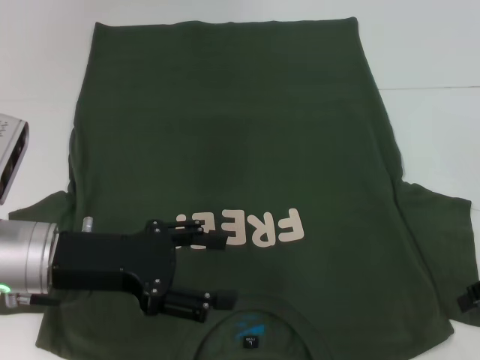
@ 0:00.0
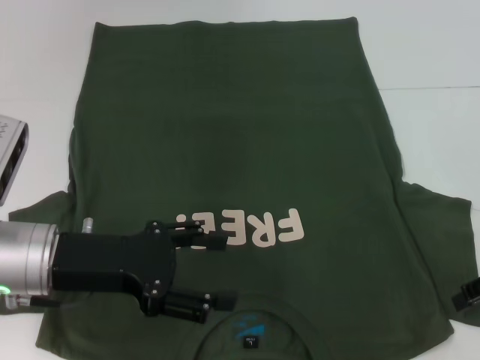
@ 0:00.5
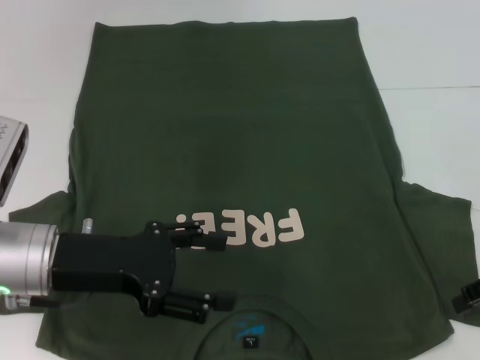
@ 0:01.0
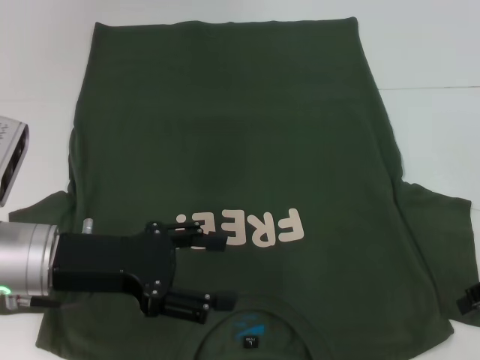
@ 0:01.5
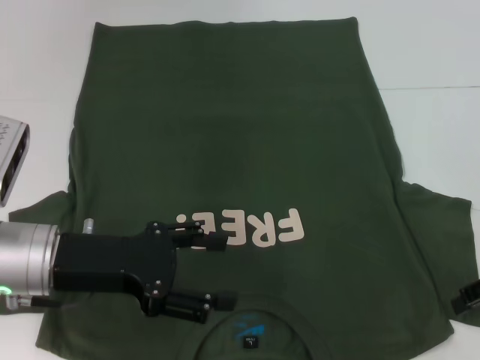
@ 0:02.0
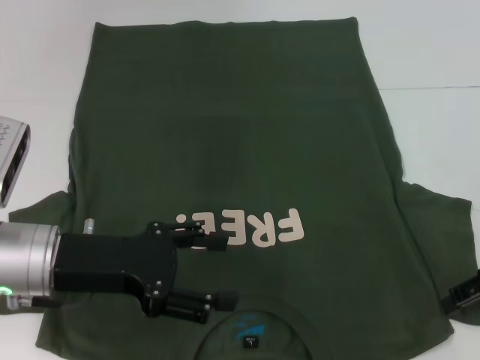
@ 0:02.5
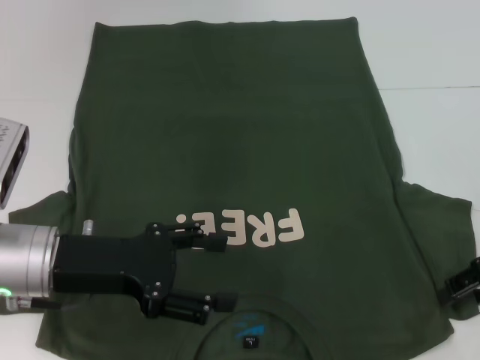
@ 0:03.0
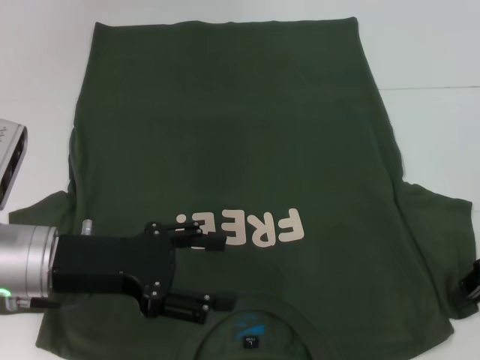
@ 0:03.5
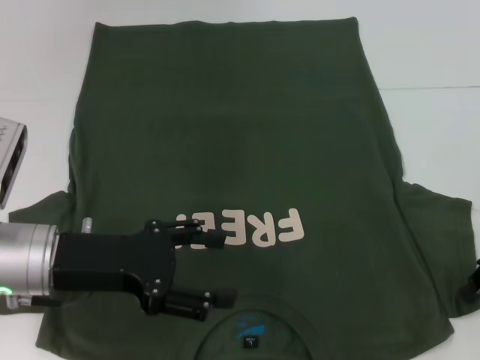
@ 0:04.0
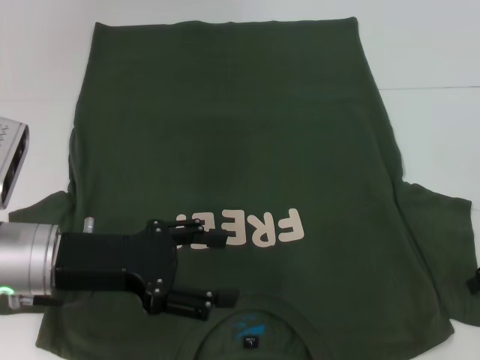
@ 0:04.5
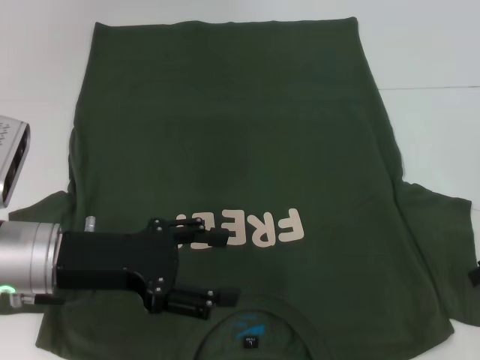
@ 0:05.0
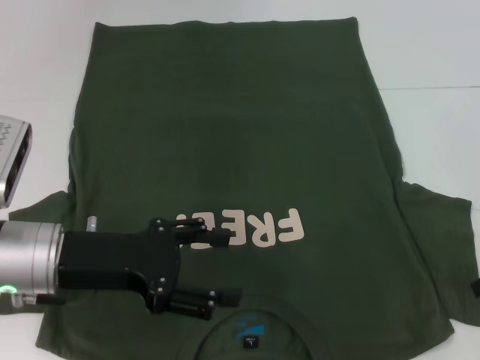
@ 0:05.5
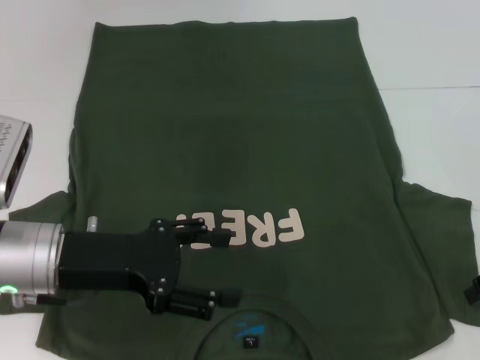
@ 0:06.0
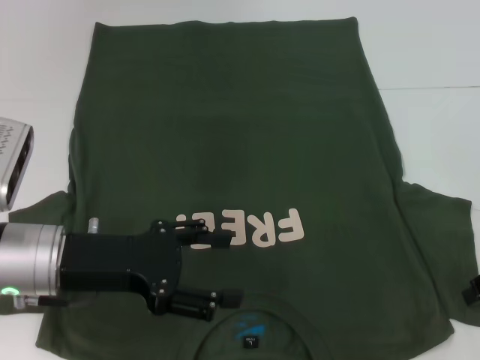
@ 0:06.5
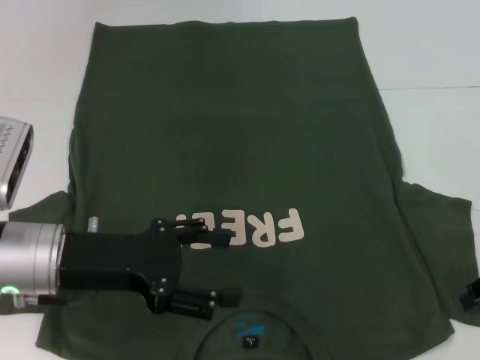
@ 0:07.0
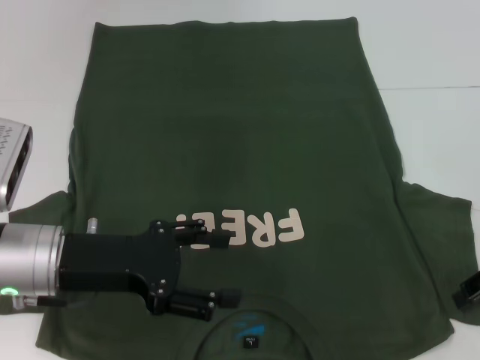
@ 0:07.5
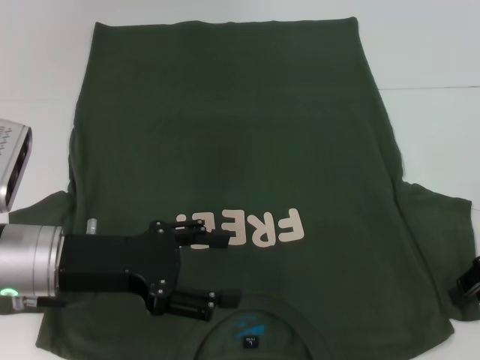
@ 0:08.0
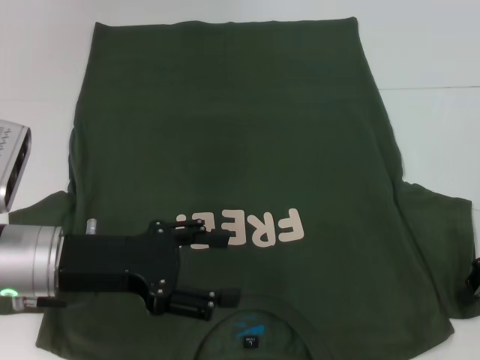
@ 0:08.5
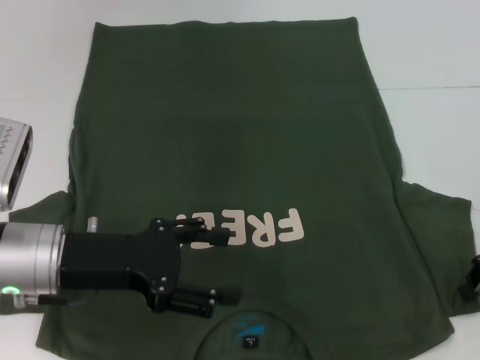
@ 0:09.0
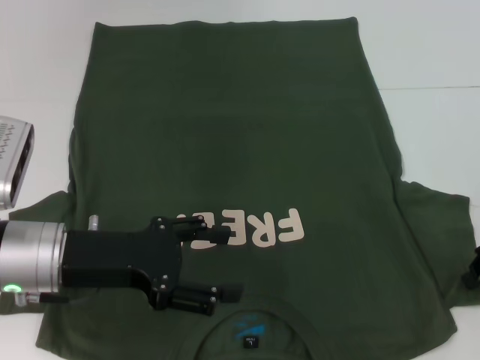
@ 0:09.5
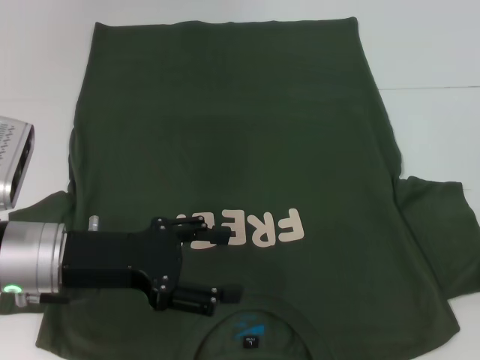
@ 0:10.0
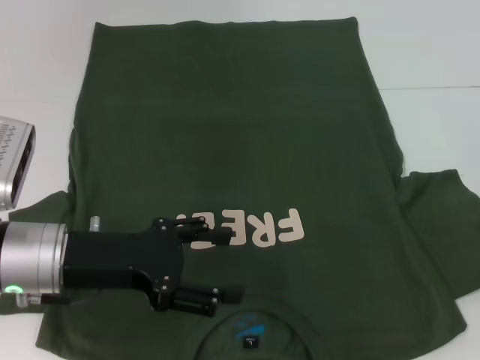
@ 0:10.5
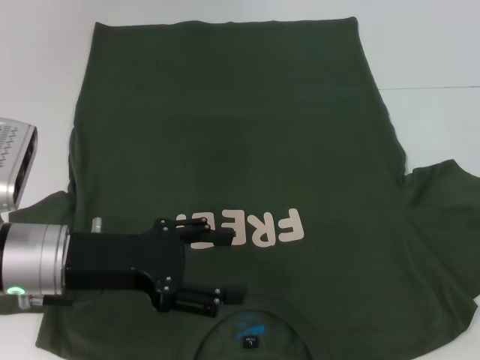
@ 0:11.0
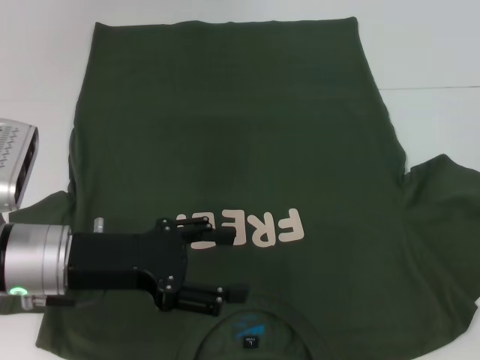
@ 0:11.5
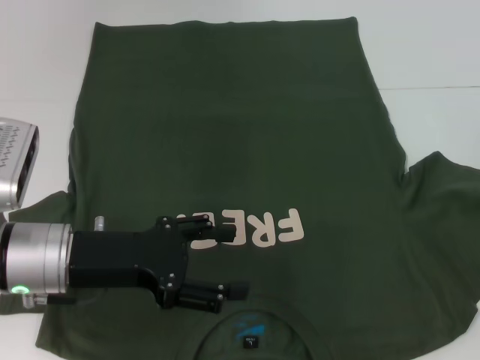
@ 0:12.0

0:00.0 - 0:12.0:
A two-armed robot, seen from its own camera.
0:00.0 - 0:02.0: Both grippers stay put.
0:04.0 - 0:06.0: The right gripper opens up.
0:06.0 - 0:08.0: There are only small adjustments of the grippers.
0:08.0 - 0:10.0: The right gripper closes its fingers.
0:10.0 - 0:12.0: There are only small adjustments of the grippers.

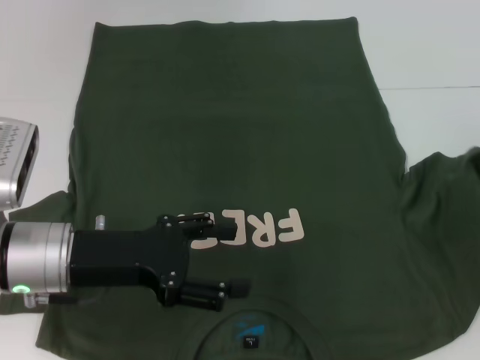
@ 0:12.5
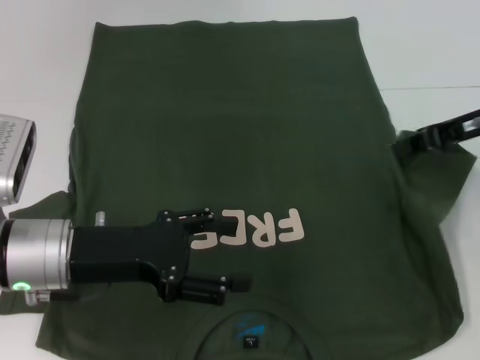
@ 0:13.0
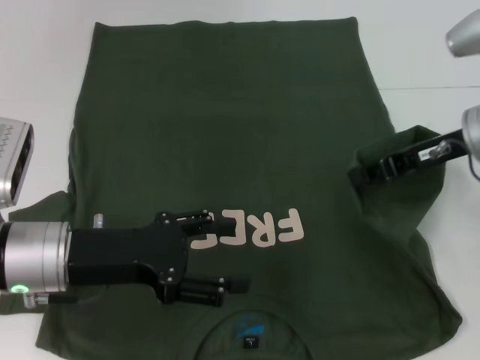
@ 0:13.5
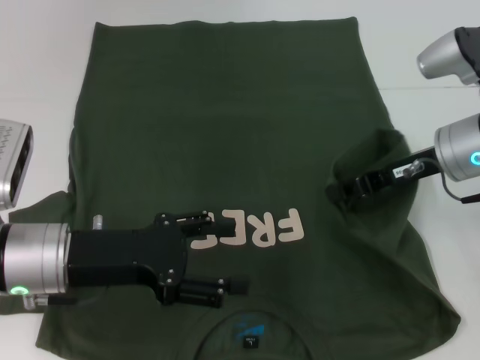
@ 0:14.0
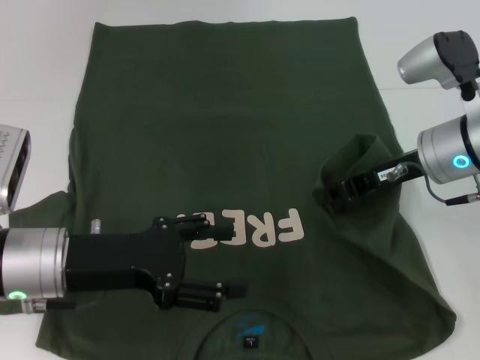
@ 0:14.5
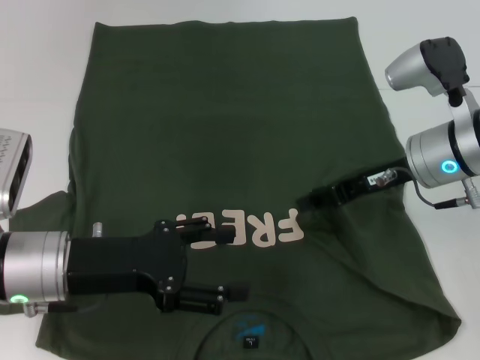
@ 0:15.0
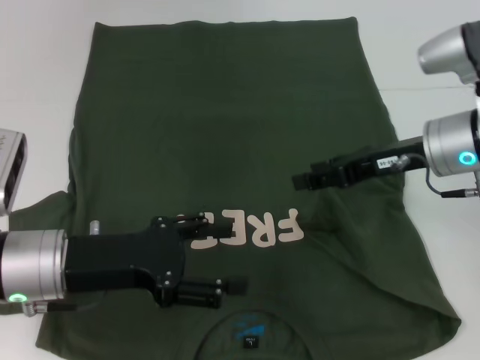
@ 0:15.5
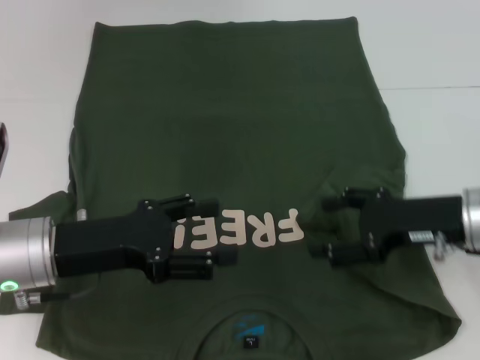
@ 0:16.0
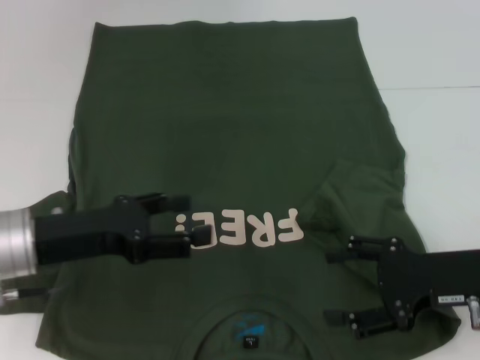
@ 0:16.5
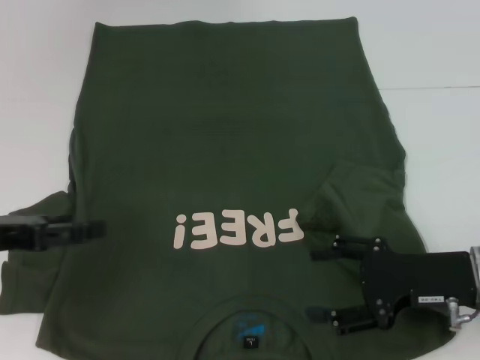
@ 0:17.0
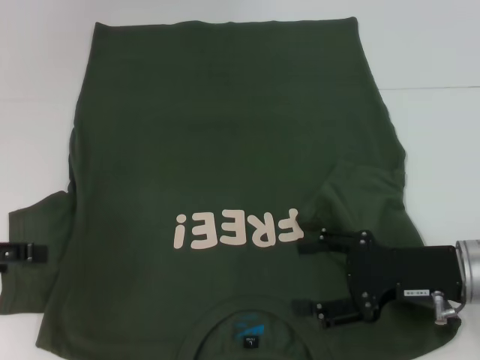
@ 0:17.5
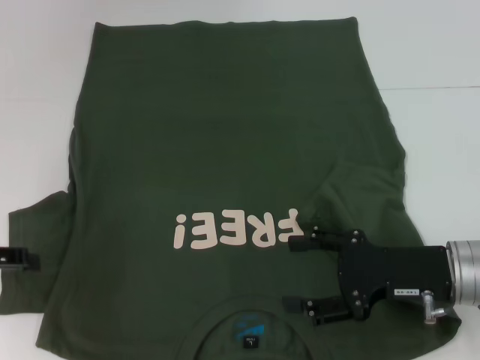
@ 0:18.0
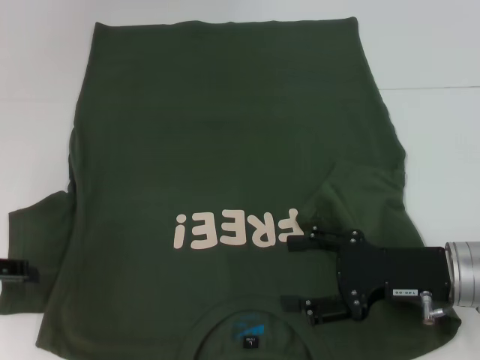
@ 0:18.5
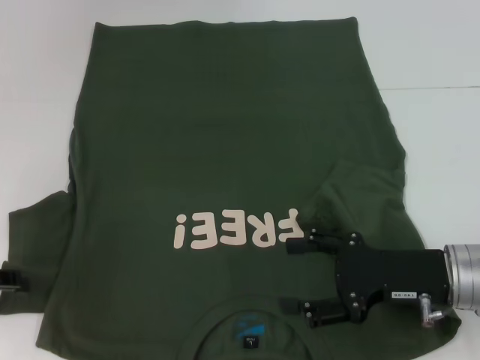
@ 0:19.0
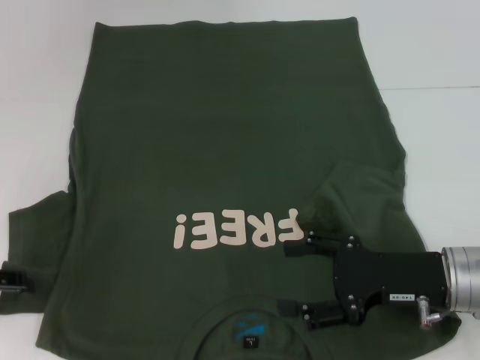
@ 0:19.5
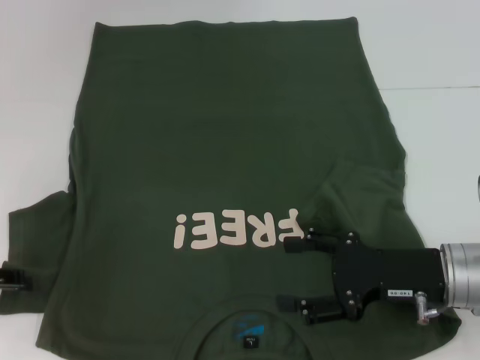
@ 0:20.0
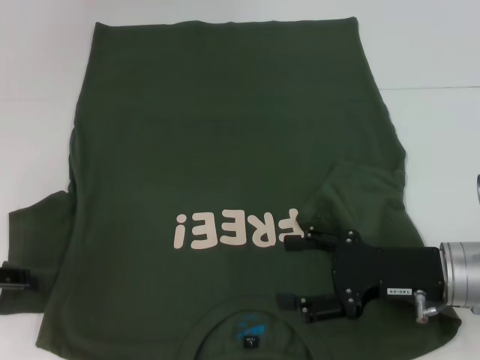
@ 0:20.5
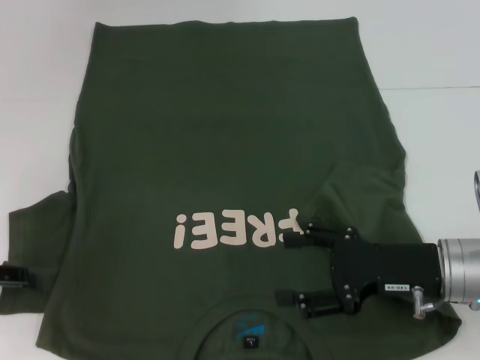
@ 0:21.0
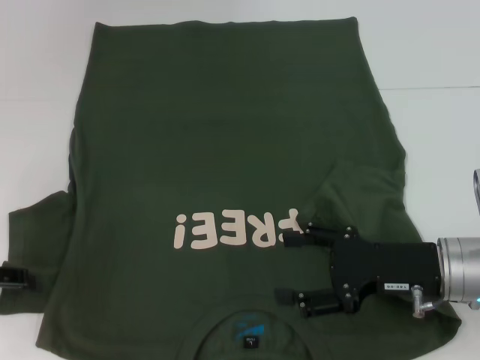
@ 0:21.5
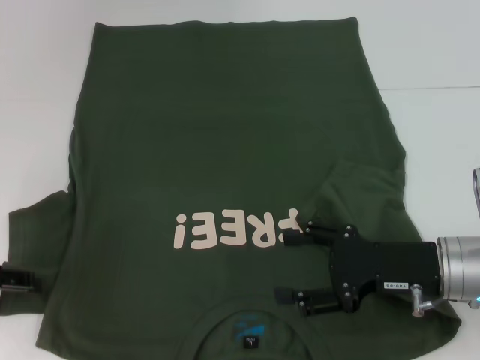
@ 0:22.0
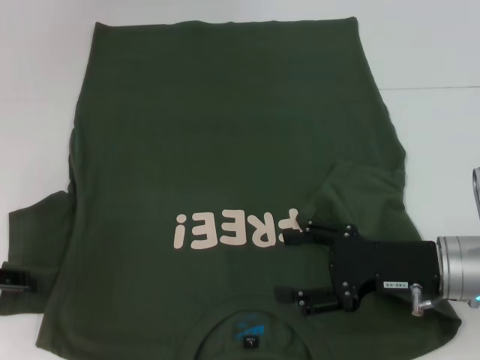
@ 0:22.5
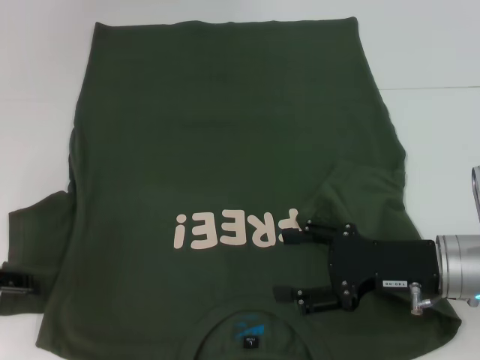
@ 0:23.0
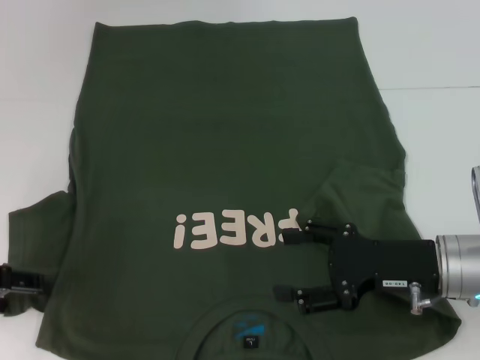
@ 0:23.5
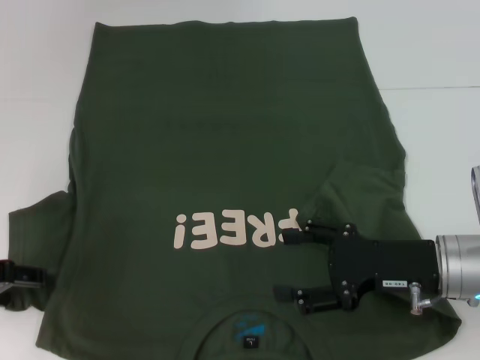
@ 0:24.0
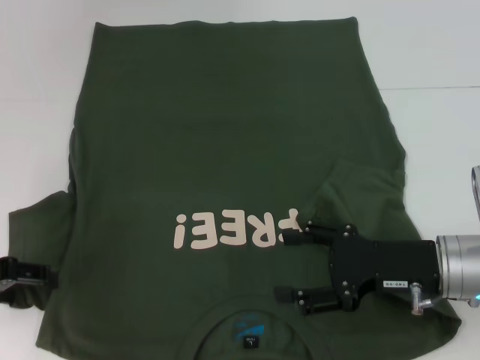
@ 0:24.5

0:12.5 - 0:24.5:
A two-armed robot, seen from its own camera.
Step, 0:12.5 - 0:15.0: Fold the bottom right sleeve with your right hand.
0:12.5 - 0:14.5: The right gripper moves to the left and downward, approximately 15 cm.
0:14.5 - 0:16.5: The right gripper heads backward, covering about 10 cm, and opens.
0:16.5 - 0:18.5: The left gripper travels to the left by about 10 cm.
0:18.5 - 0:20.5: The grippers stay close to where they were, moving slightly.
0:20.5 - 0:22.5: Neither gripper changes place.
0:22.5 - 0:24.5: There are only small adjustments of the grippers.

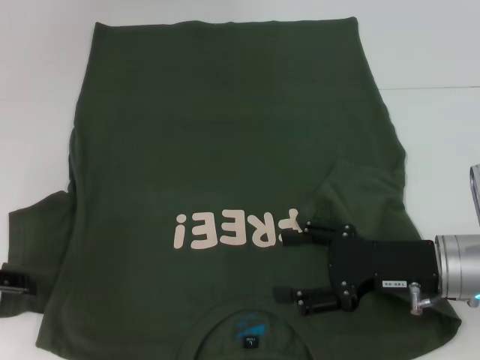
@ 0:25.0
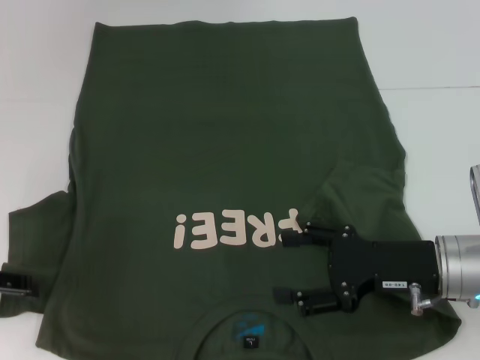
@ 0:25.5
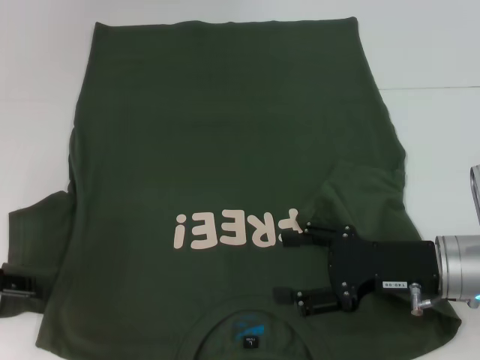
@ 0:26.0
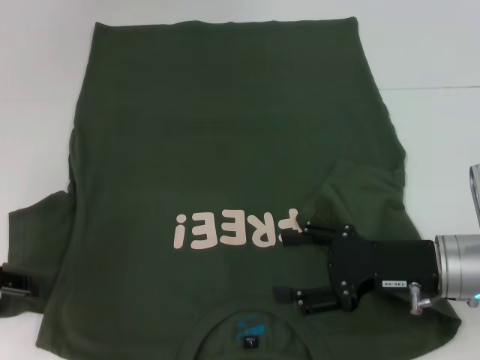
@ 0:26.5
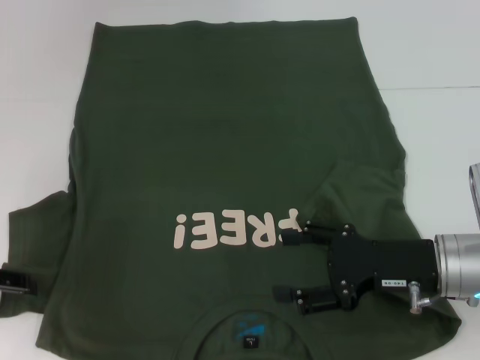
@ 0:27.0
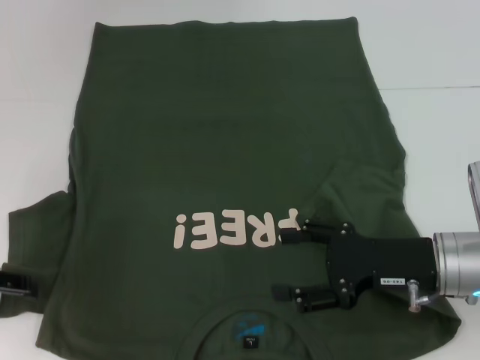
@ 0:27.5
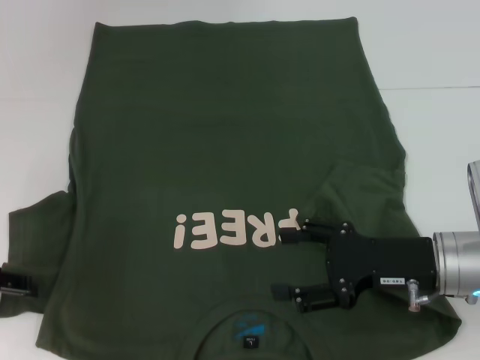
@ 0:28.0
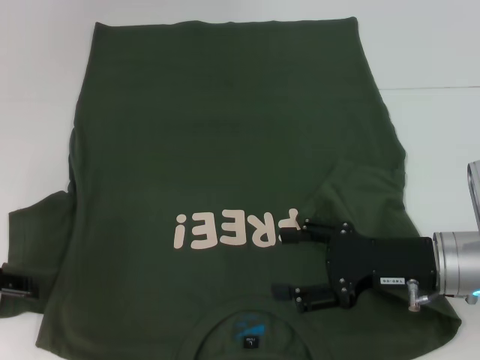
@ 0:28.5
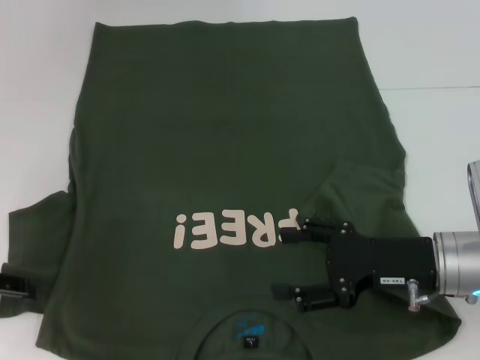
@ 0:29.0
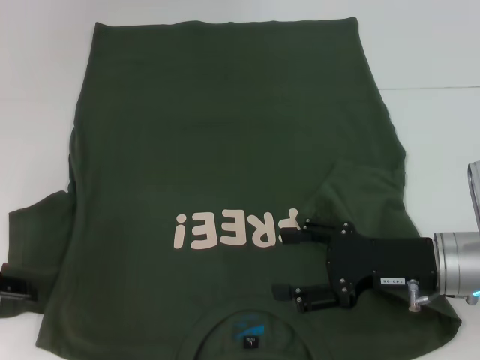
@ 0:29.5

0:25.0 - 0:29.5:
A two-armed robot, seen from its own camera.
0:25.0 - 0:29.5: The two grippers keep their place.
